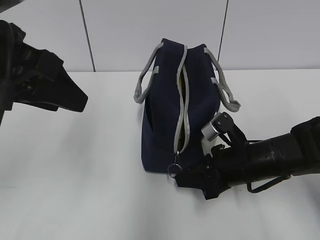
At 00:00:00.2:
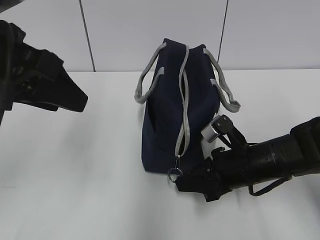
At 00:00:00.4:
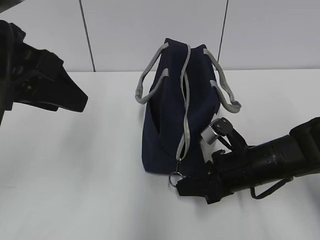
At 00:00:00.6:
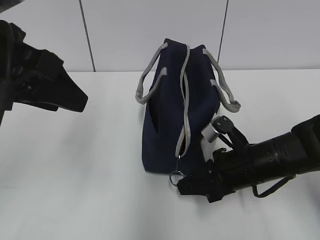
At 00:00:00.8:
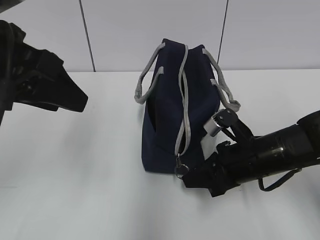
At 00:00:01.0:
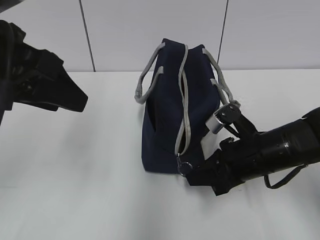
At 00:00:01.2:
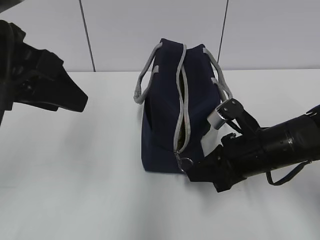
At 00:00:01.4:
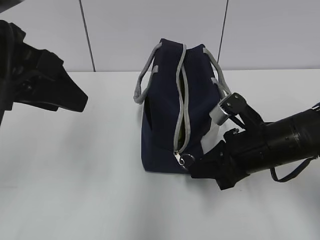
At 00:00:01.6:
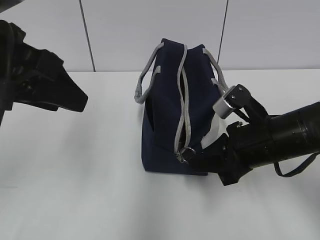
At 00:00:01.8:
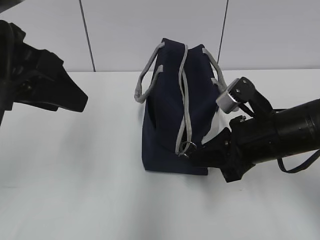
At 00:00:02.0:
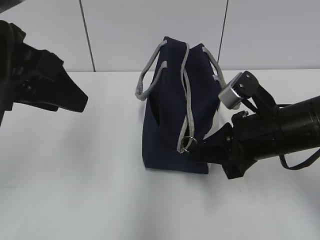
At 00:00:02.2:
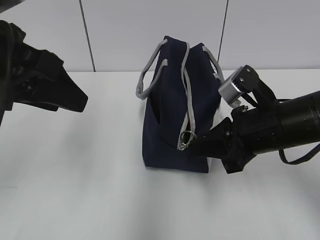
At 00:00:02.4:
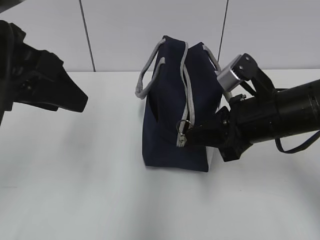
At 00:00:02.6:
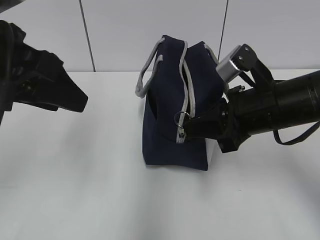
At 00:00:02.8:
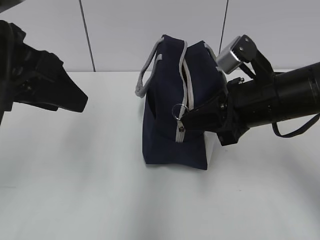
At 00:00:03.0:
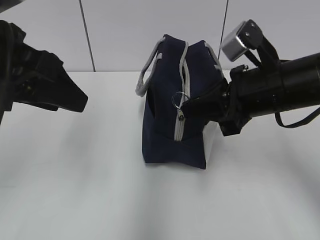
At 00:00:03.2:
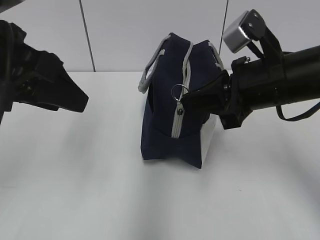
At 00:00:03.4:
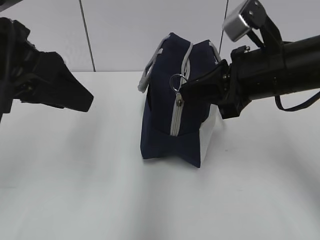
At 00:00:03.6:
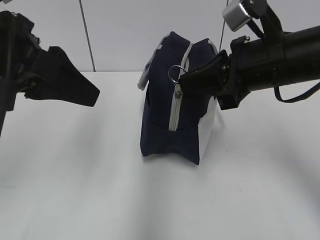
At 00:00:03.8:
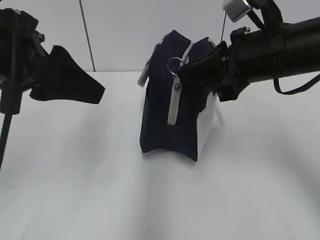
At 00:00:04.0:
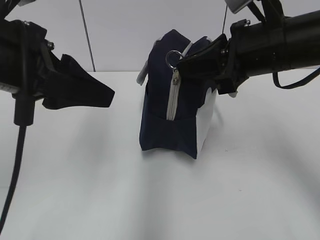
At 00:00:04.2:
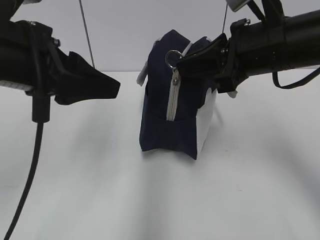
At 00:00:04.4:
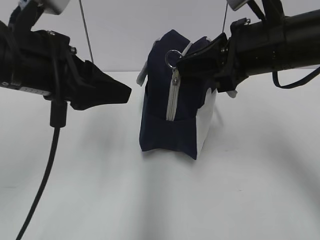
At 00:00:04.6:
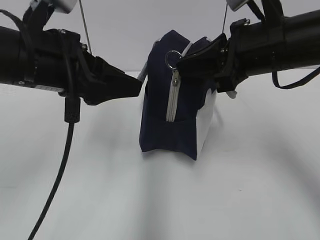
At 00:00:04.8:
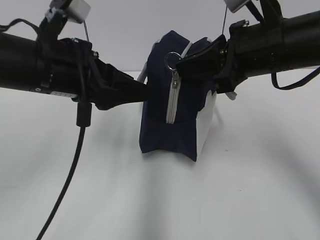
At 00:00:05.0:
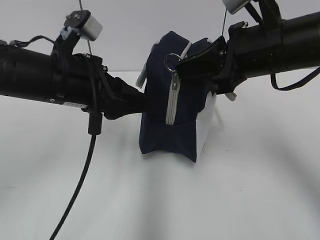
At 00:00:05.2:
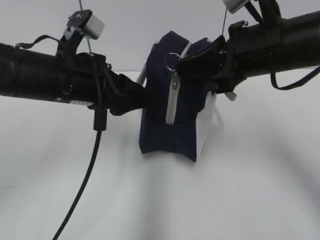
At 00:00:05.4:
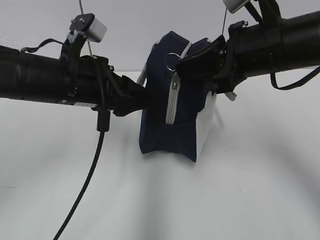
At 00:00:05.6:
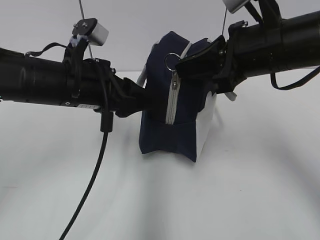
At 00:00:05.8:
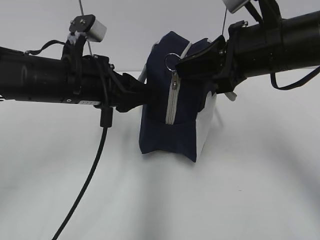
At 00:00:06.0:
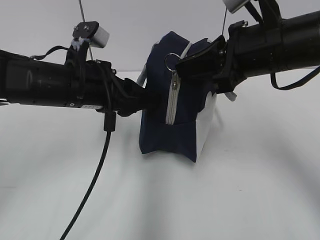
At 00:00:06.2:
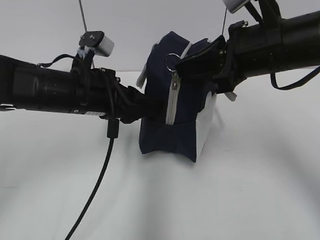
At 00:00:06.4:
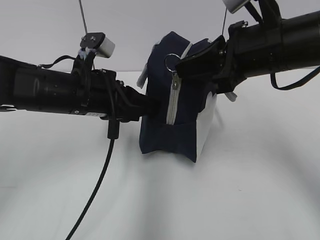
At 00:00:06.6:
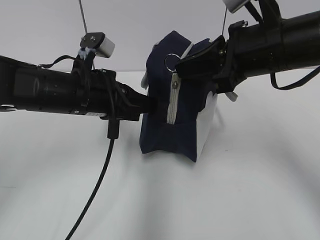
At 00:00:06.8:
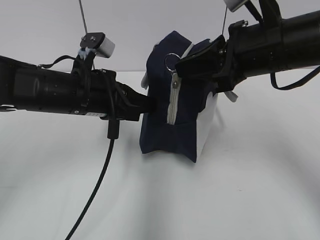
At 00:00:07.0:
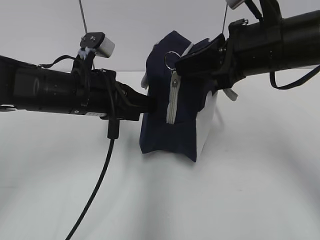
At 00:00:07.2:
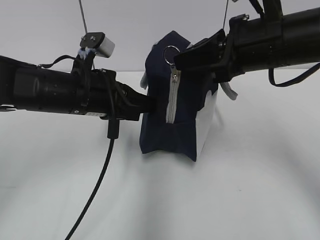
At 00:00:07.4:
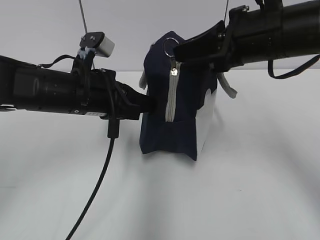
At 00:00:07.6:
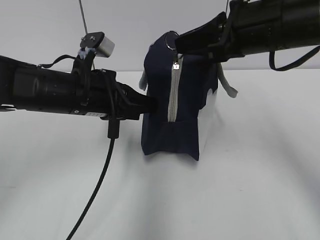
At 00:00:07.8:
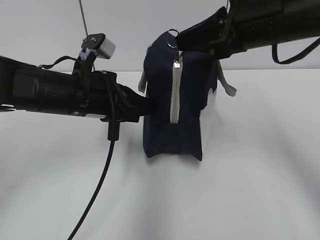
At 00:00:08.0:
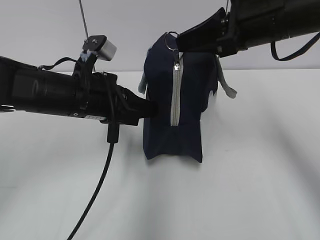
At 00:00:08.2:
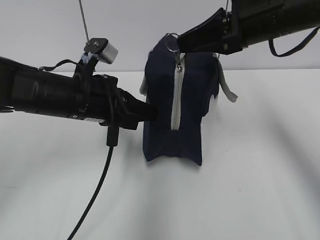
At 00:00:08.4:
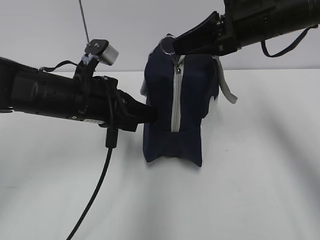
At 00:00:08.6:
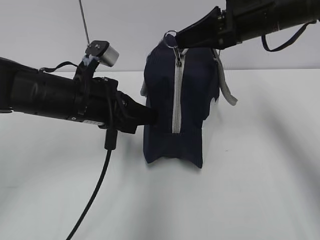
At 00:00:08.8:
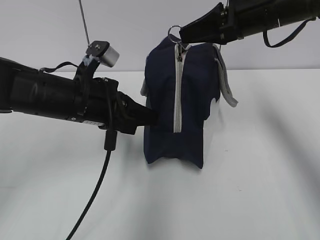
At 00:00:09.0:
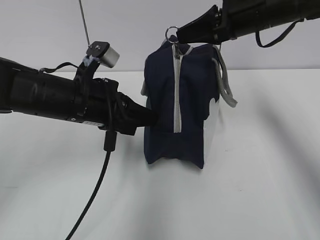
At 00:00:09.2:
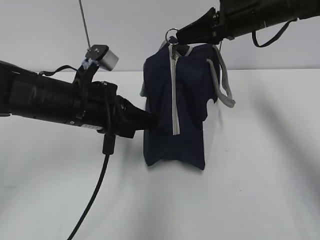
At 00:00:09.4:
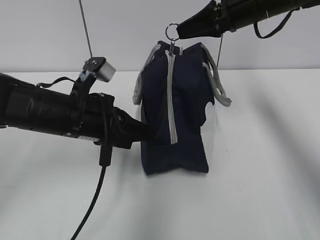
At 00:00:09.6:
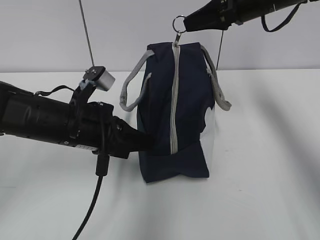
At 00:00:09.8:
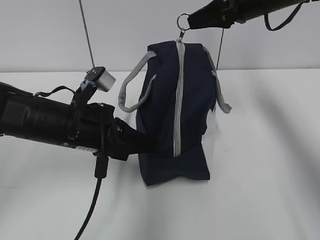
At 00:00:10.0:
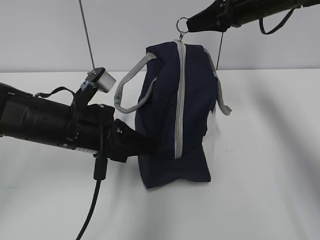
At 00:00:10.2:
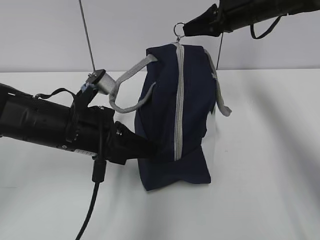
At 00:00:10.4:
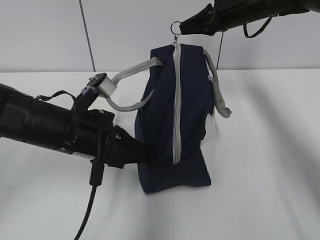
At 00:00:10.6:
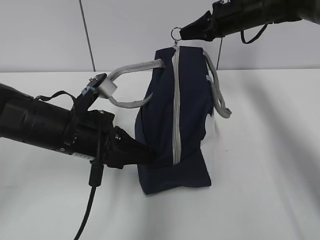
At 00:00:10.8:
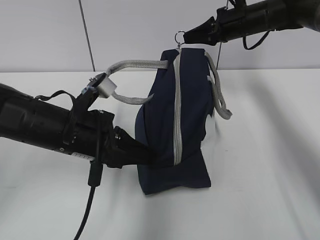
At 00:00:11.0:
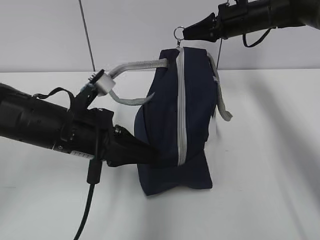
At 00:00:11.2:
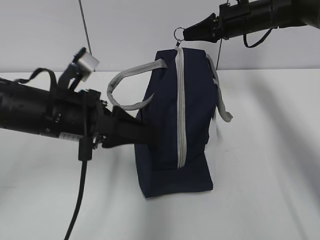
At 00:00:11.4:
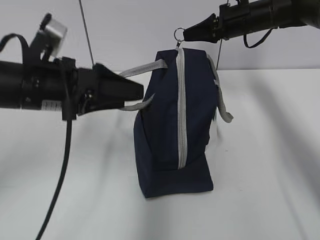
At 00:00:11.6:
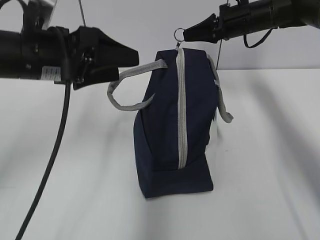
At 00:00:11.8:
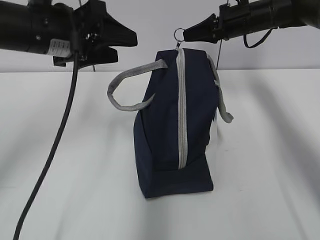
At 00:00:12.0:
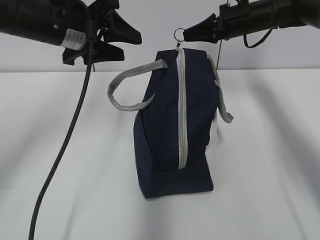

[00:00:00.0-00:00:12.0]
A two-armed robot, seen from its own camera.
00:00:00.0 to 00:00:01.6: The right gripper heads upward, covering roughly 5 cm.
00:00:01.6 to 00:00:03.0: The right gripper travels upward by roughly 10 cm.
00:00:03.0 to 00:00:04.4: The right gripper moves about 5 cm.
00:00:04.4 to 00:00:06.0: The left gripper heads downward and forward, covering approximately 10 cm.
00:00:06.0 to 00:00:07.6: The left gripper closes.
00:00:07.6 to 00:00:09.0: The right gripper travels forward by some 10 cm.
00:00:09.0 to 00:00:10.4: The right gripper is displaced forward by some 10 cm.
00:00:10.4 to 00:00:12.0: The left gripper is displaced upward and forward by roughly 15 cm, and opens up.

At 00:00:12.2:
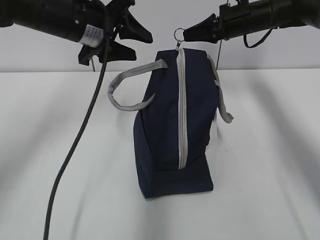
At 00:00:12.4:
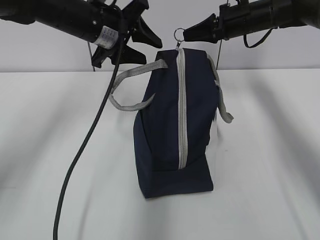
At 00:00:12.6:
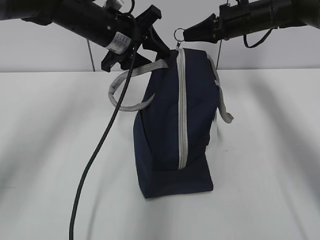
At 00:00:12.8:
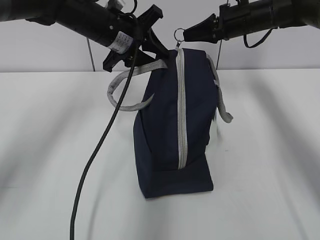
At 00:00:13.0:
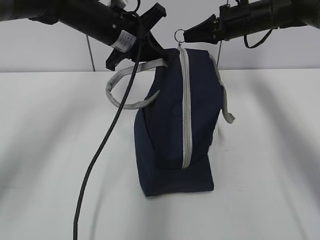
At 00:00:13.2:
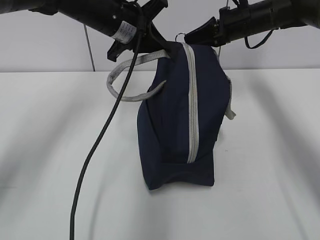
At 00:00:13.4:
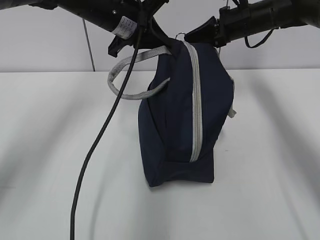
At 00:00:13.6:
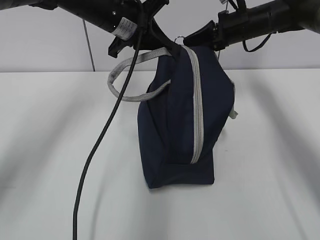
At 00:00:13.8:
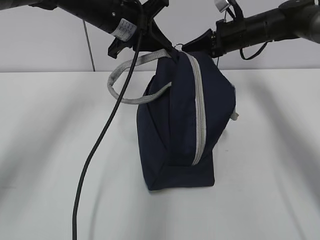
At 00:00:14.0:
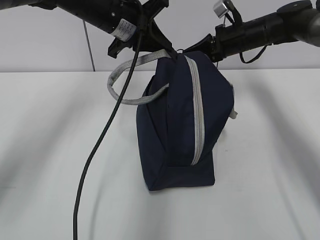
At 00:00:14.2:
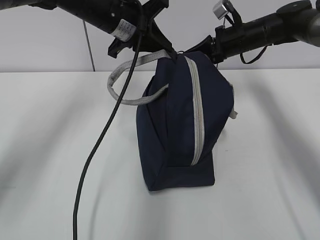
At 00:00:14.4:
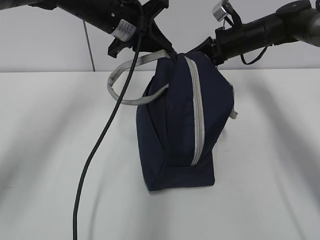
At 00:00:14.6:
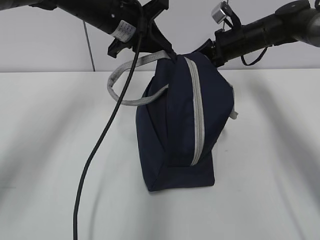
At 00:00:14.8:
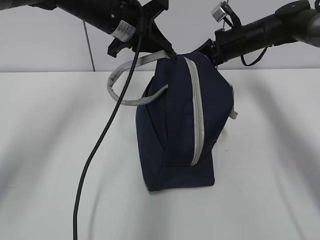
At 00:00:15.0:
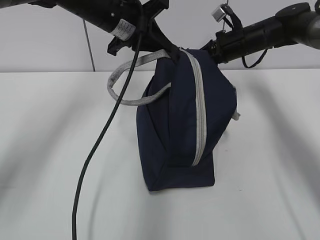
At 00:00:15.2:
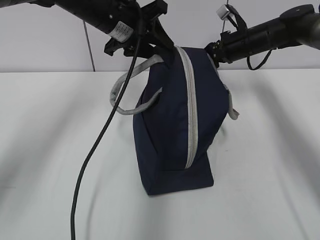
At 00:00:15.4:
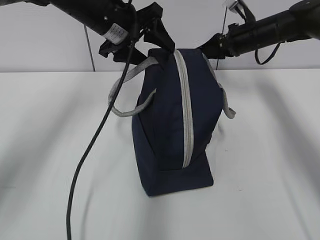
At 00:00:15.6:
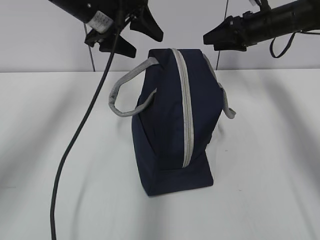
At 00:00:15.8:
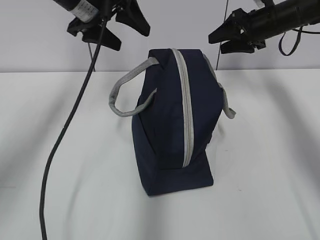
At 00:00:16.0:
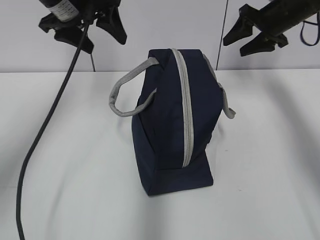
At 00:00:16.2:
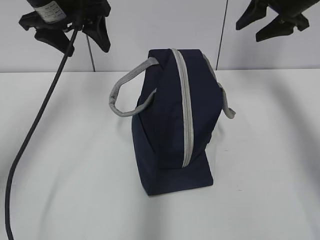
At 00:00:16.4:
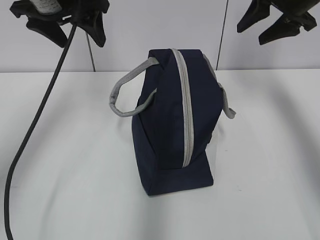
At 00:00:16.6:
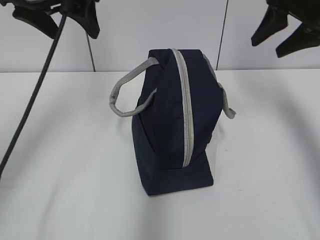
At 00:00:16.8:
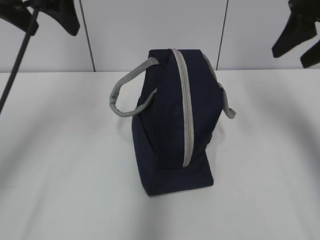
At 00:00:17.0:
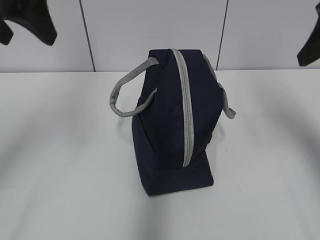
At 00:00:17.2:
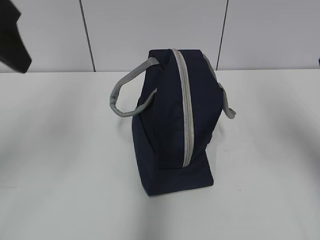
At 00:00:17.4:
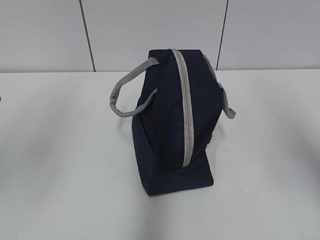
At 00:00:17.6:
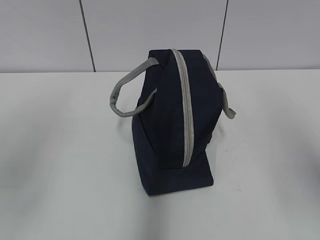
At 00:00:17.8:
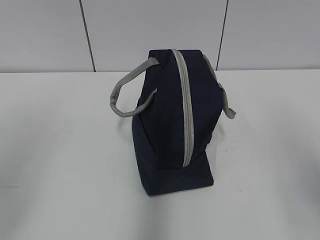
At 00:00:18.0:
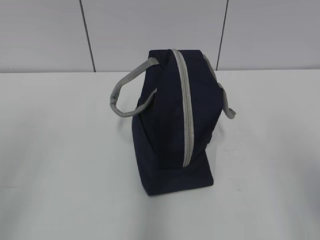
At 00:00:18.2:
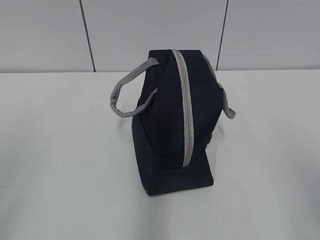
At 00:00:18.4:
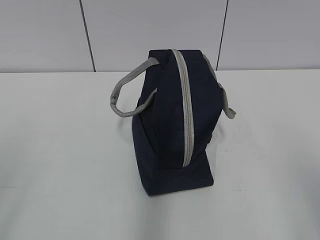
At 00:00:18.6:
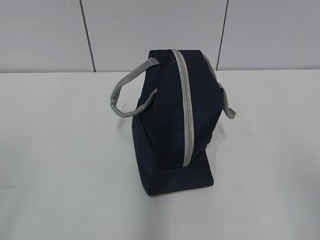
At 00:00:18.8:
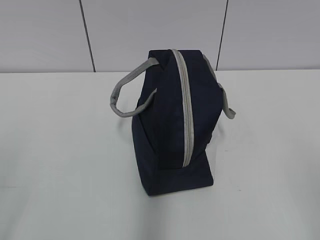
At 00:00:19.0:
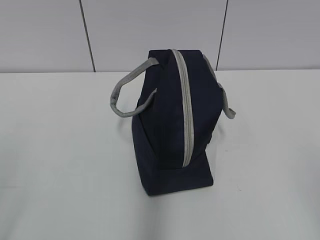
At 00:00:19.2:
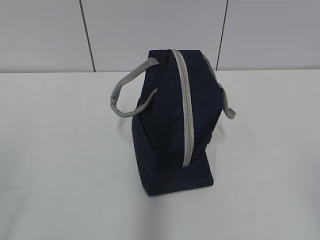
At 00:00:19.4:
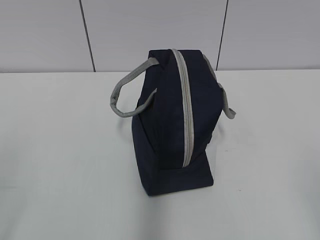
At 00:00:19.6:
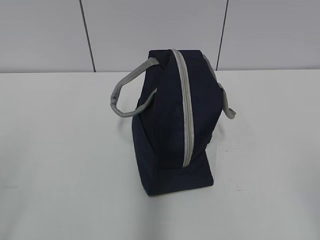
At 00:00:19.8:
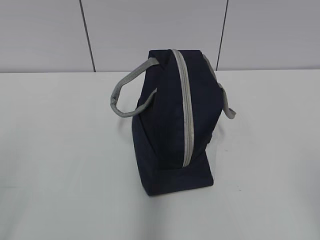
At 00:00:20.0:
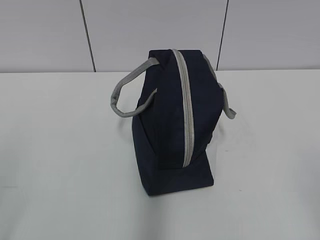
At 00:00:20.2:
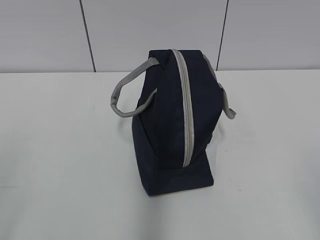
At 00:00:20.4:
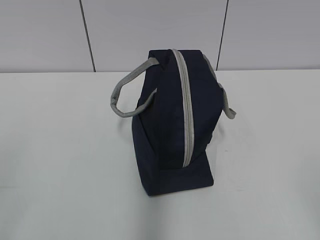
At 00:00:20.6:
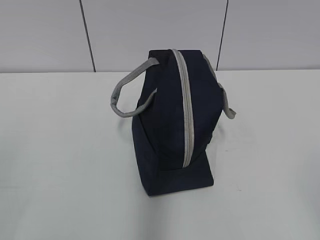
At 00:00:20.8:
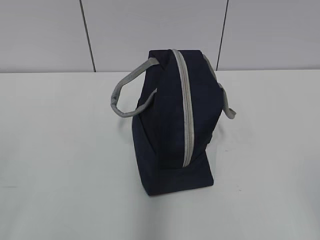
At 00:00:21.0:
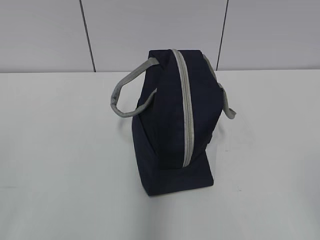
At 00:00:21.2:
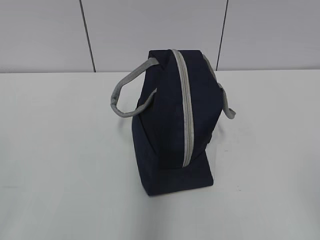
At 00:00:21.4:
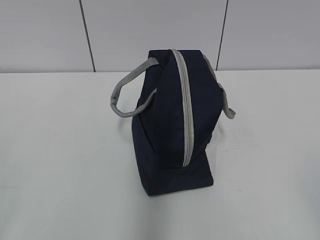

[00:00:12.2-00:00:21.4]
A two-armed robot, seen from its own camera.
00:00:12.2 to 00:00:13.8: The left gripper shifts by roughly 5 cm, and closes.
00:00:13.8 to 00:00:15.2: The right gripper opens. Meanwhile the left gripper opens up.
00:00:15.2 to 00:00:16.8: The left gripper is displaced upward, backward and to the left by roughly 20 cm, and opens up, while the right gripper travels backward and upward by roughly 25 cm.
00:00:16.8 to 00:00:18.4: The left gripper travels backward and to the left by approximately 30 cm. The right gripper goes roughly 25 cm backward.
